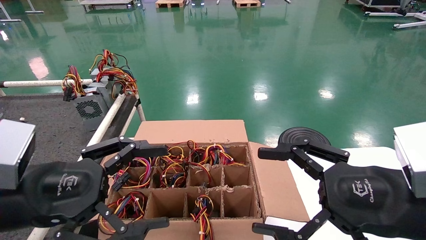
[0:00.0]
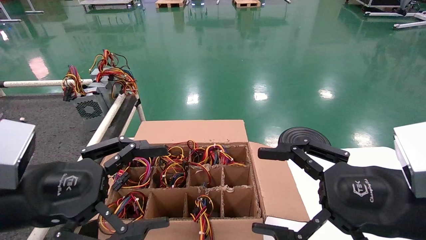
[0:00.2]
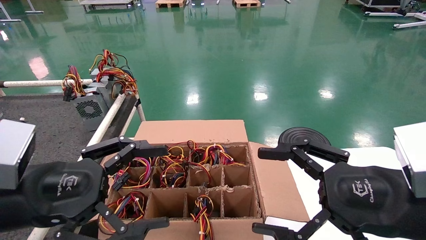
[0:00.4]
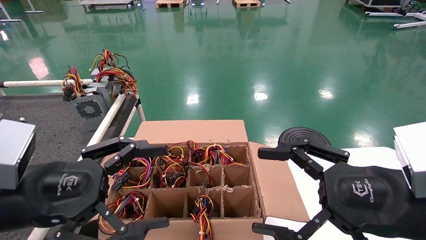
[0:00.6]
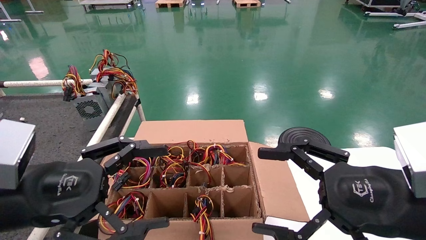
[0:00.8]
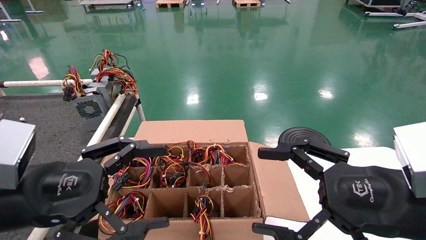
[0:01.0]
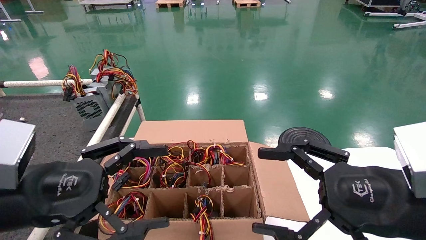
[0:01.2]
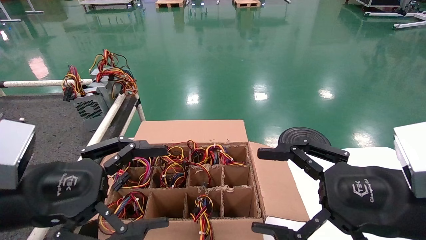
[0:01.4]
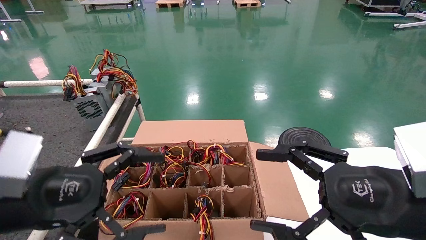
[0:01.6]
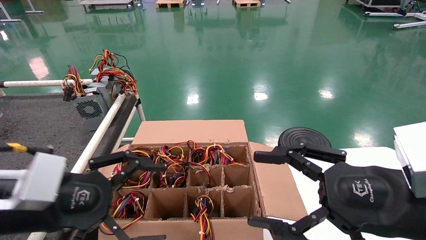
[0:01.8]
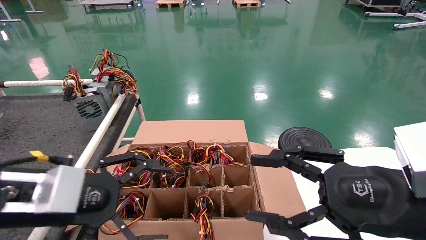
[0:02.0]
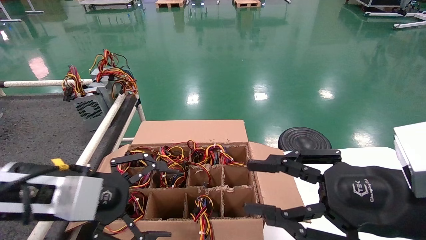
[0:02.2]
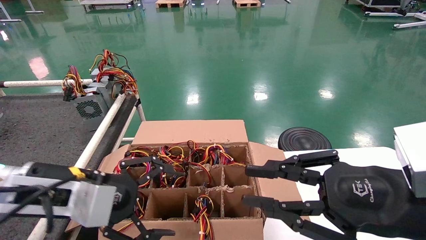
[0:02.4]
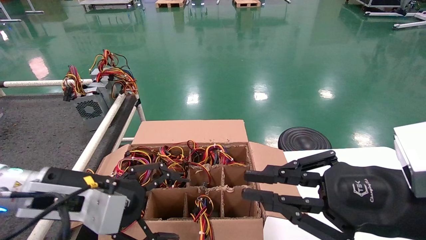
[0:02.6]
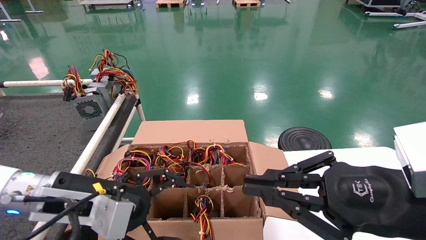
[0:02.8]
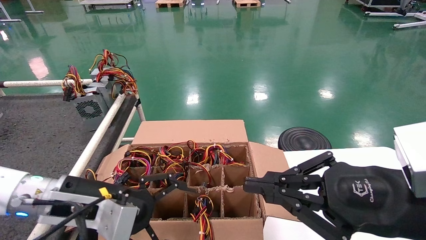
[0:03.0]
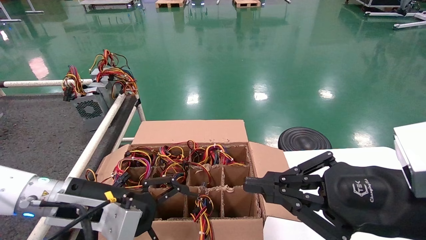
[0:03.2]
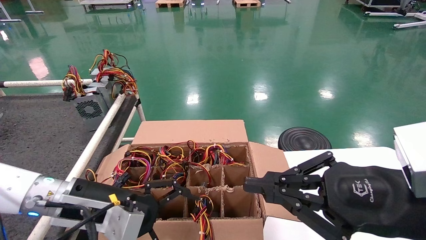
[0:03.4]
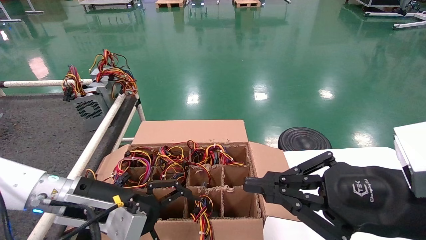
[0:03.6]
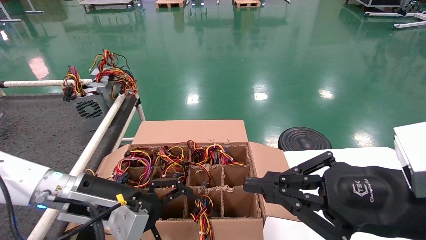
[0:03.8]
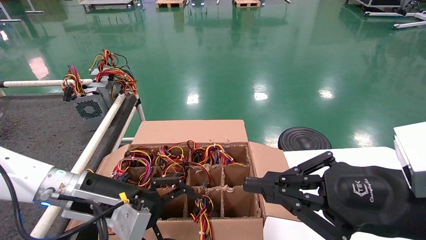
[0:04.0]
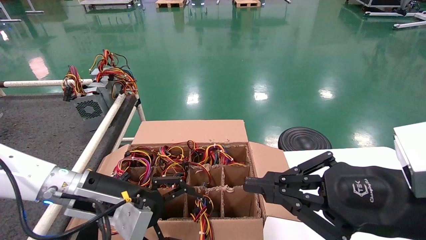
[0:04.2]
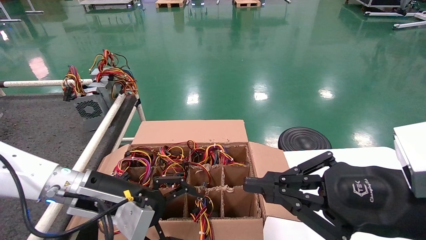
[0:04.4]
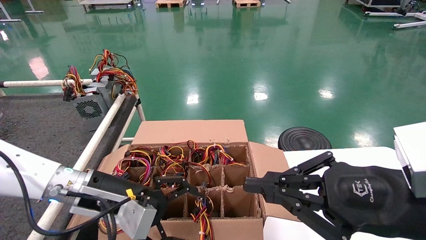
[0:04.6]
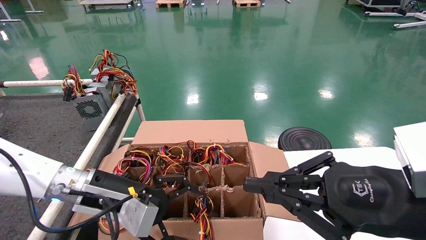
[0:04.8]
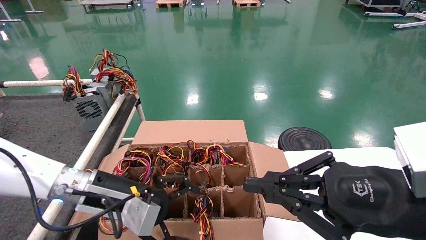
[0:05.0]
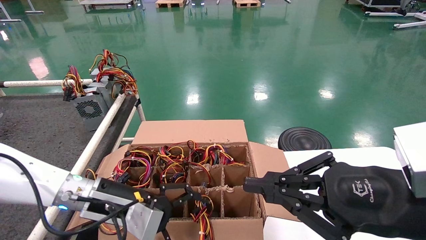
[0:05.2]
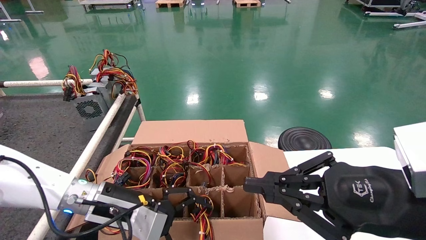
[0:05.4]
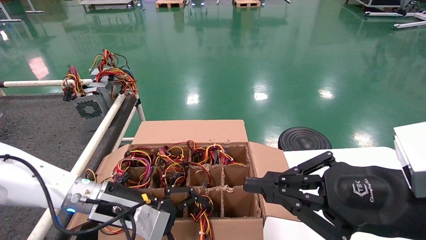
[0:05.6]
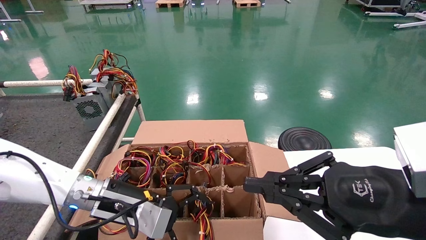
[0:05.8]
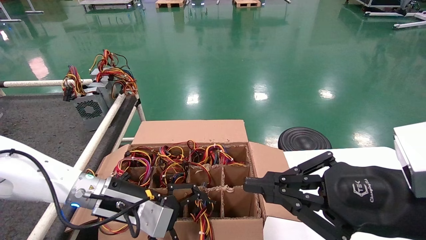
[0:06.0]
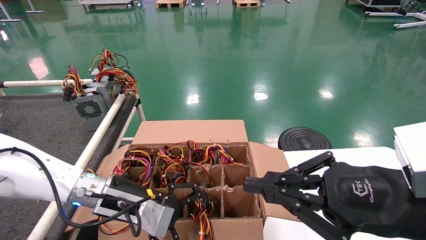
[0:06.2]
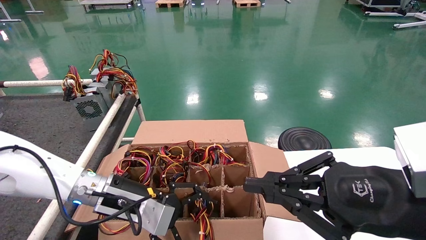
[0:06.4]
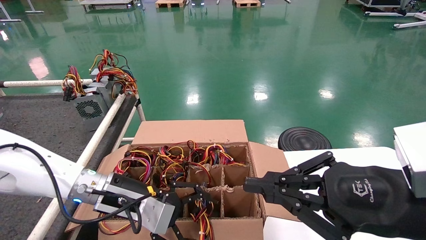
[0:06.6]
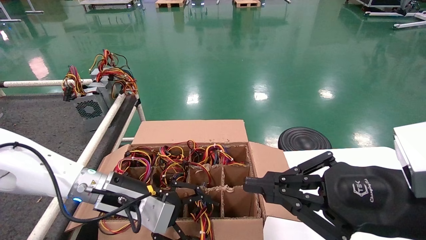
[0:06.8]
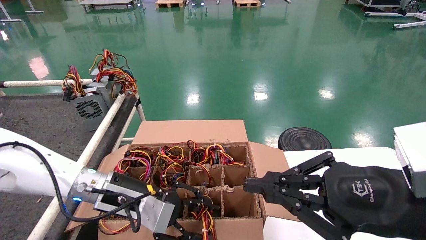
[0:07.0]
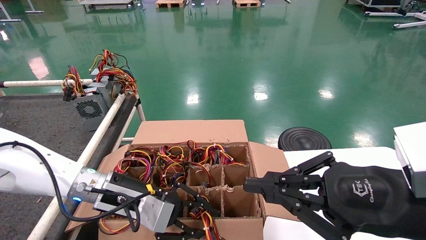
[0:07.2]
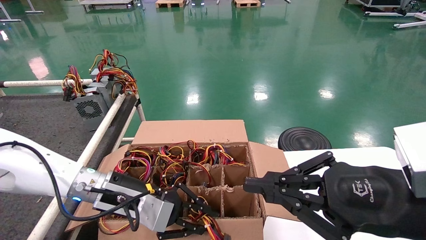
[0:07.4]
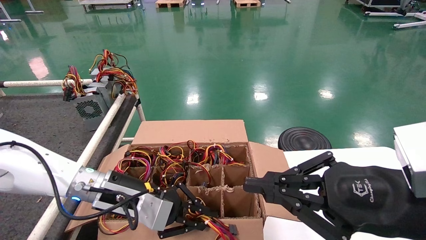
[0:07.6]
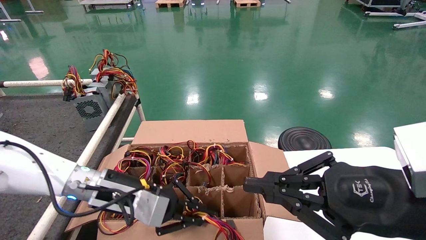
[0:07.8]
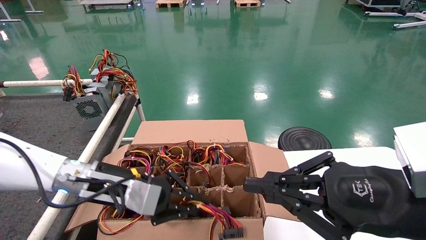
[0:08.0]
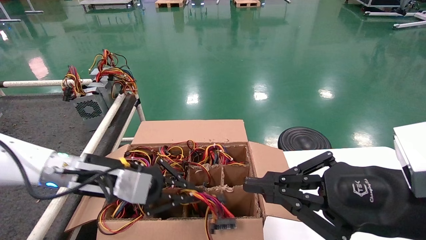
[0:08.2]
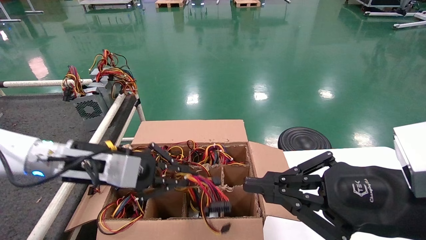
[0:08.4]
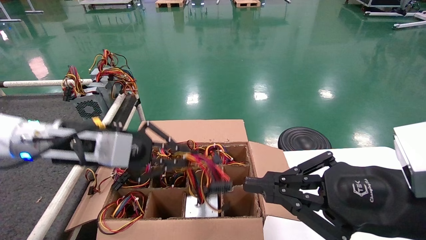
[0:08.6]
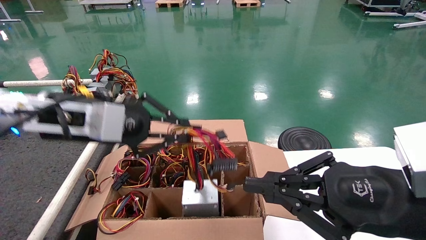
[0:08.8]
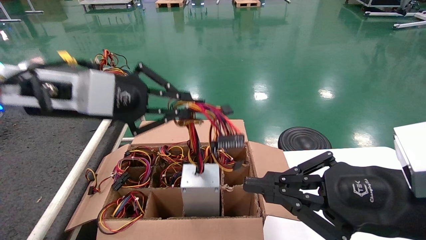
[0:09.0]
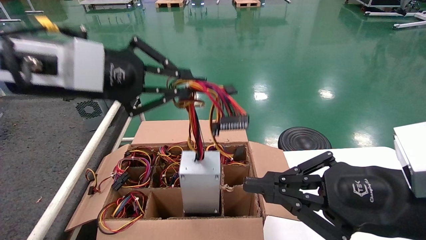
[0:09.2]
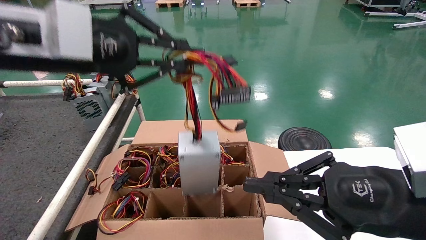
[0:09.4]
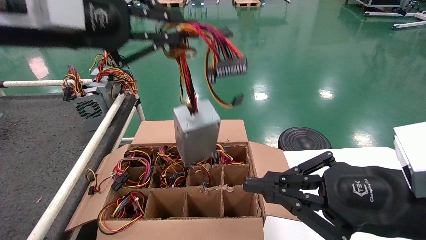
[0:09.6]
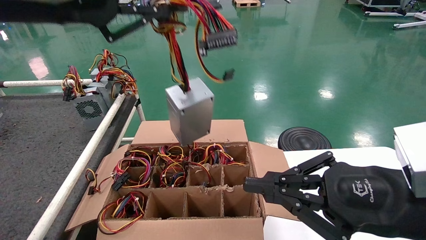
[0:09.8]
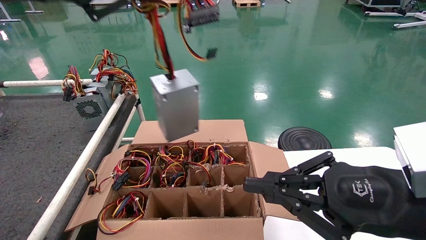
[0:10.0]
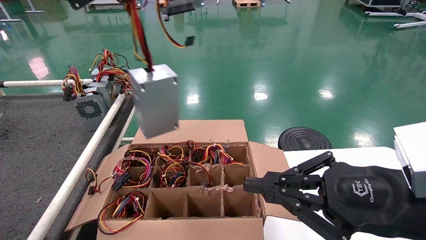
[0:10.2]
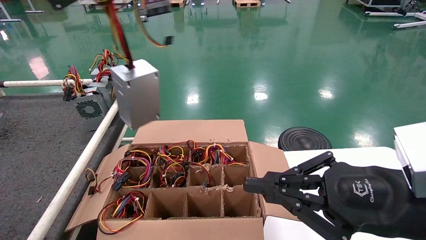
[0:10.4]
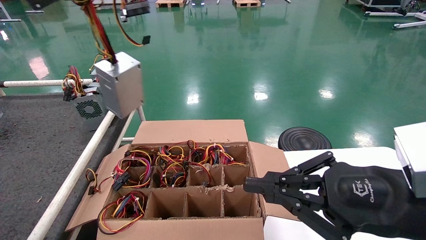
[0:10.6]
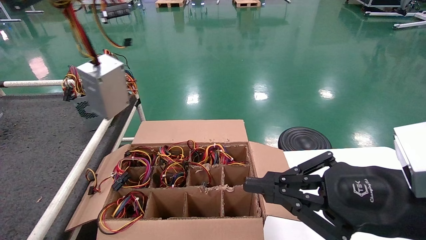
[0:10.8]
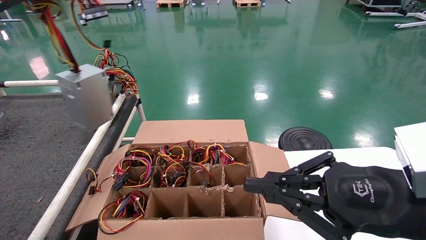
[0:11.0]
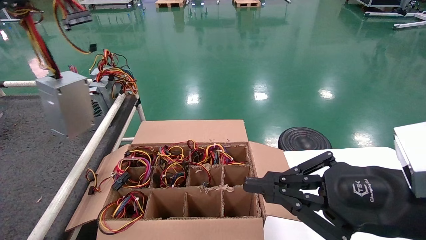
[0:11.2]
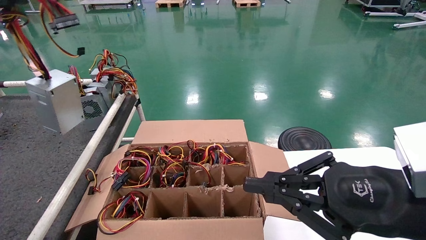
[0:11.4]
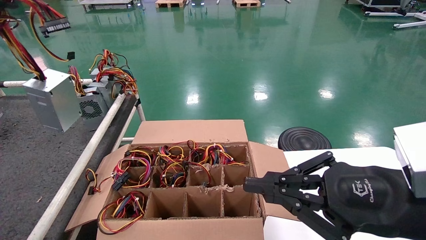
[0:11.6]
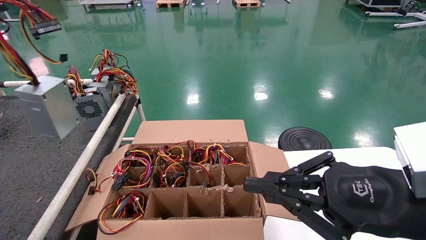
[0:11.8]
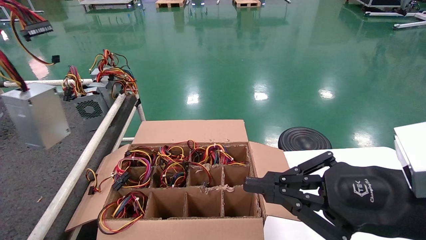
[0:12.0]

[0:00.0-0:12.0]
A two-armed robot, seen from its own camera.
Step, 0:02.0 to 0:07.8: Grab and lift the power supply from the large box.
0:00.0 to 0:01.6: The grippers move only a little.
0:01.6 to 0:03.0: The left gripper moves forward and downward, approximately 10 cm; the right gripper closes.
0:03.0 to 0:04.4: The grippers move only a little.
0:04.4 to 0:06.0: The grippers make only small movements.
0:06.0 to 0:07.6: The left gripper closes up.
0:07.6 to 0:09.0: The left gripper moves upward, roughly 20 cm.
0:09.0 to 0:10.4: The left gripper shifts roughly 15 cm upward and to the left.
0:10.4 to 0:12.0: The left gripper moves to the left, approximately 15 cm.

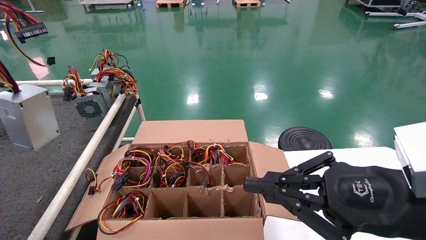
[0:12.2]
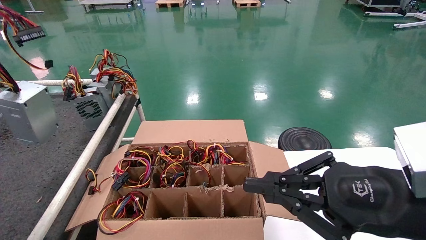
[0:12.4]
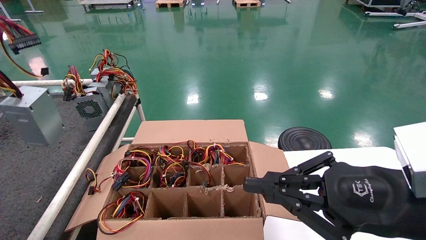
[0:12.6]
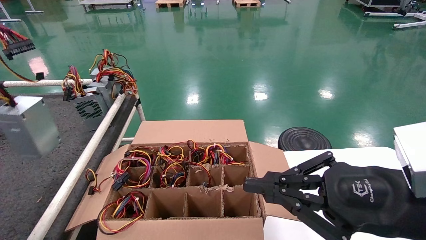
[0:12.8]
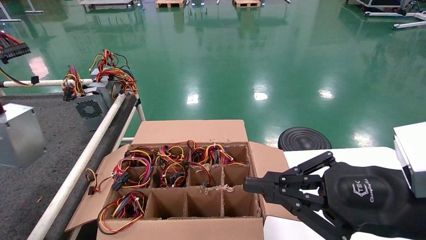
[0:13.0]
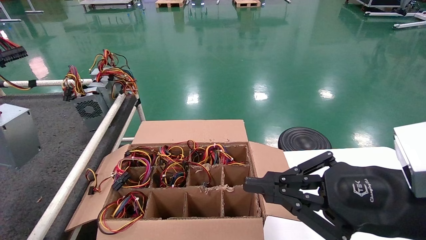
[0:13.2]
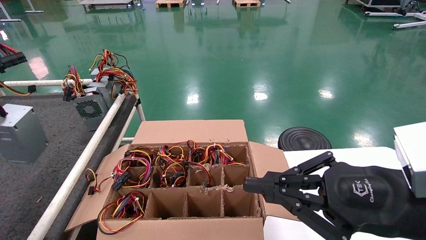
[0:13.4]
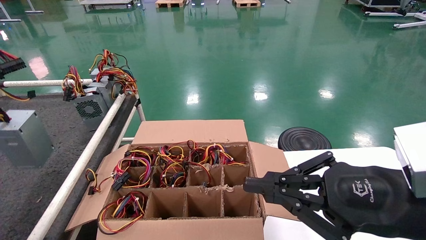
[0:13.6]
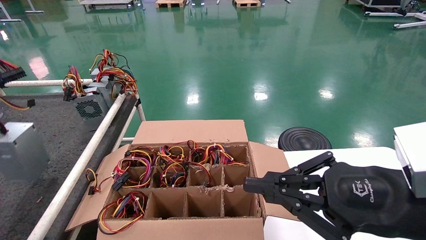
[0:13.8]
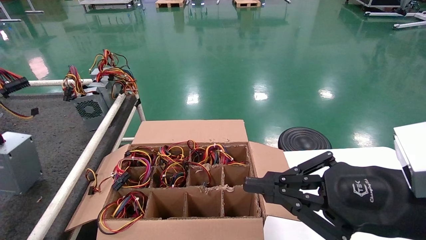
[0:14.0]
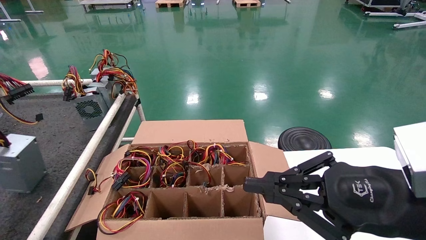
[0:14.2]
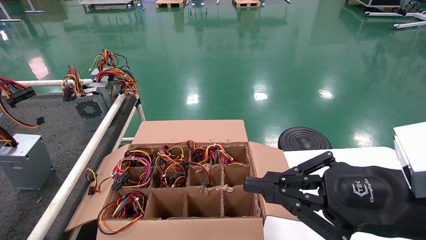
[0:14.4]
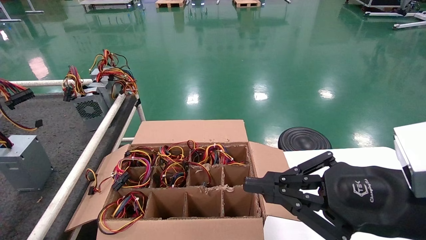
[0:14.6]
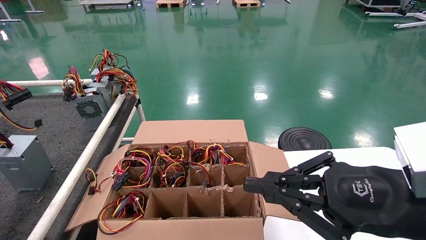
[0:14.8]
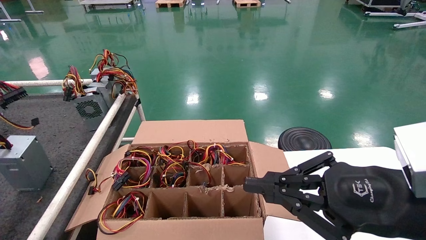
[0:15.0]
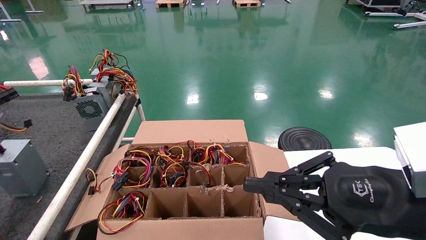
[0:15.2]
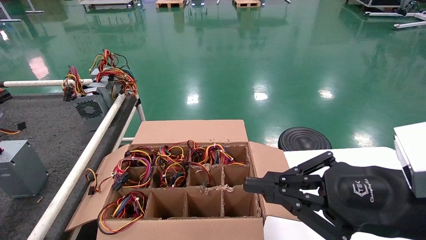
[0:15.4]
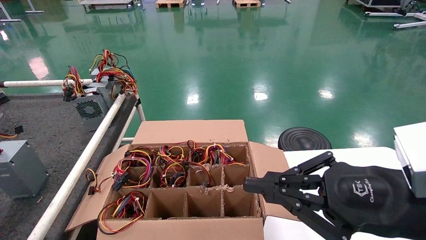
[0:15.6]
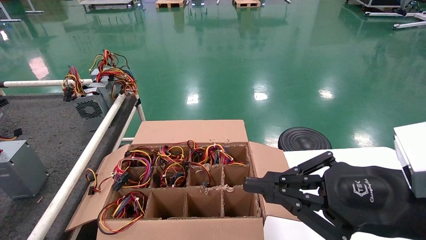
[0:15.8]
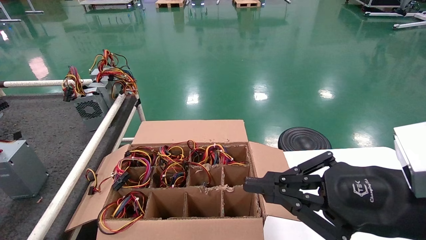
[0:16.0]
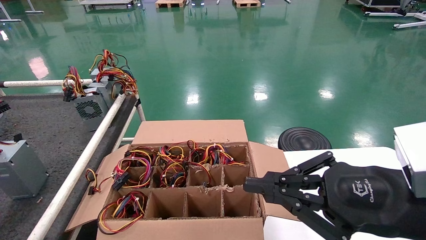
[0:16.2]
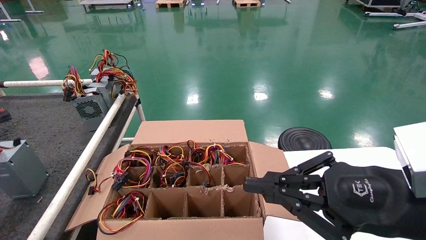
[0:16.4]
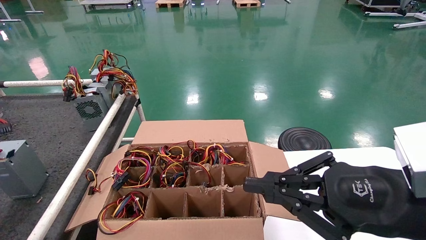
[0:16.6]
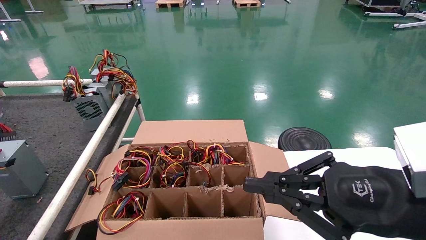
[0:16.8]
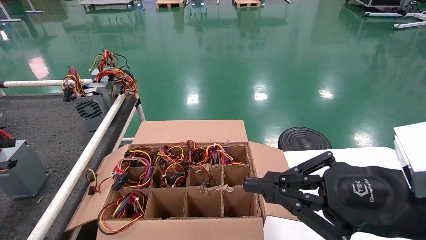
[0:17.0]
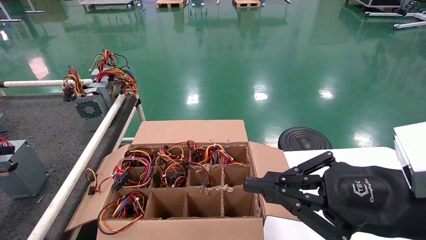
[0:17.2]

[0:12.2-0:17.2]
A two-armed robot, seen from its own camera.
Step, 0:12.2 to 0:16.6: Place the power supply on the operating table.
0:12.2 to 0:13.8: The left gripper goes about 10 cm downward and to the left.
0:13.8 to 0:15.6: The left gripper goes roughly 5 cm downward.
